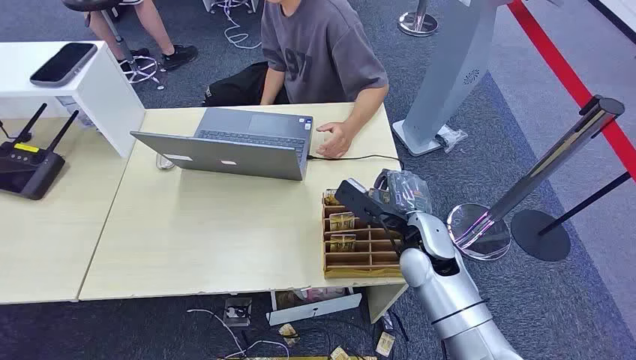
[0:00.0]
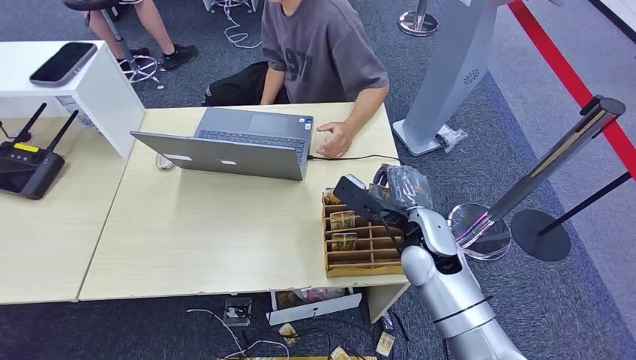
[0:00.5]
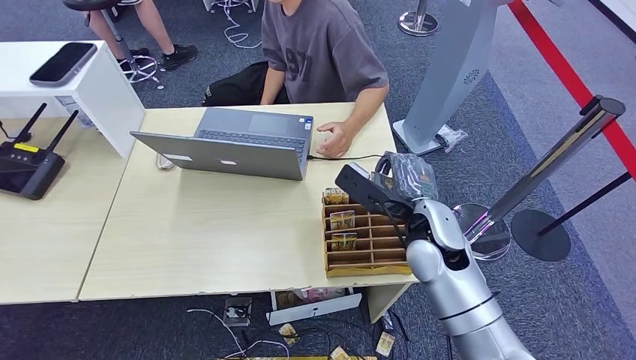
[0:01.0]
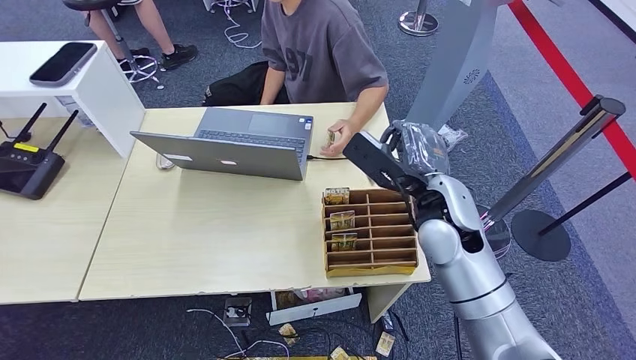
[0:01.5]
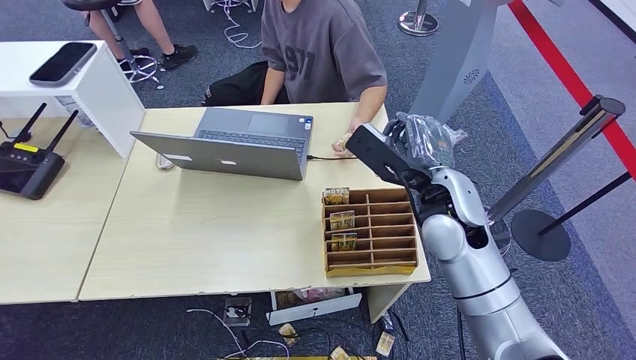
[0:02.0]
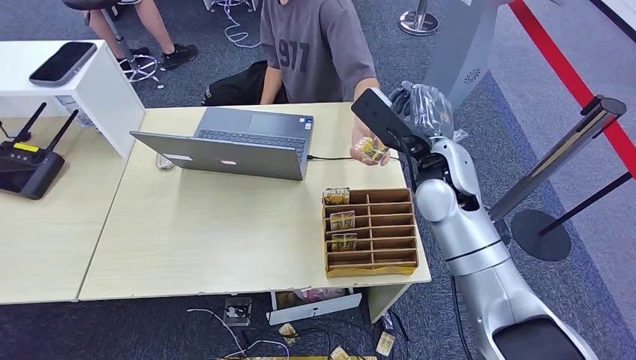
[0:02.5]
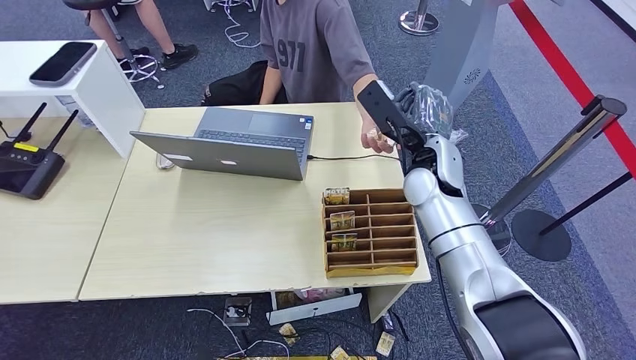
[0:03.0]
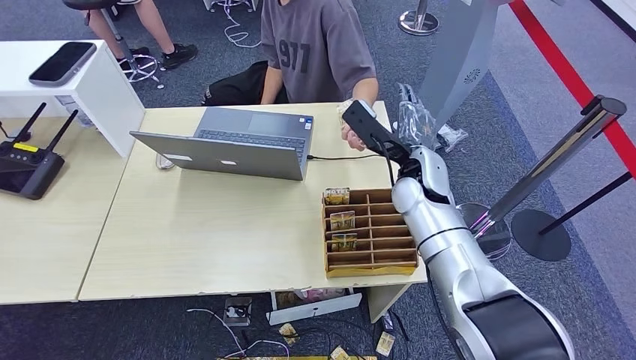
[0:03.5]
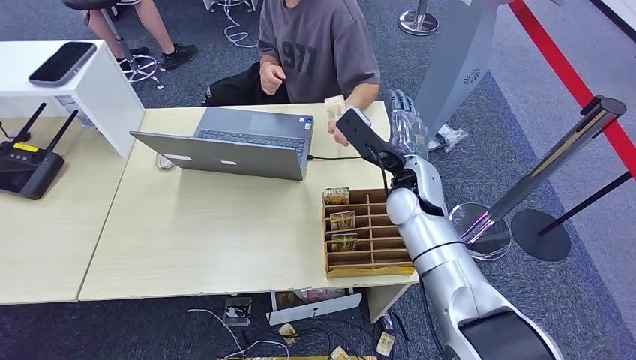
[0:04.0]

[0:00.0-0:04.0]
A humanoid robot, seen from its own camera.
Task of the whole recording: Pick up the card and hand it over to the target person.
Step, 0:00.0 to 0:01.5: Pick up the key card from the card box.
Step, 0:02.0 to 0:04.0: Hand the key card to the target.

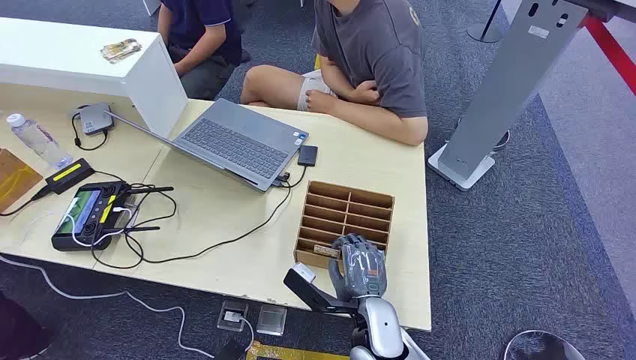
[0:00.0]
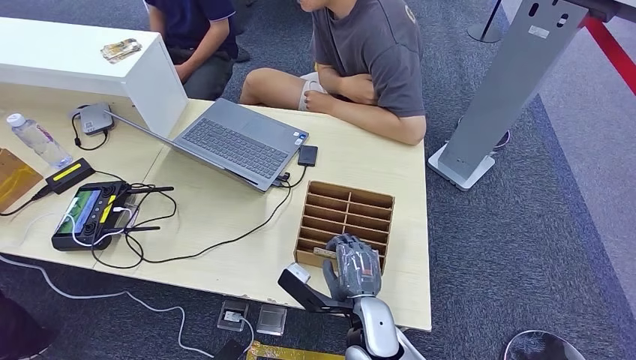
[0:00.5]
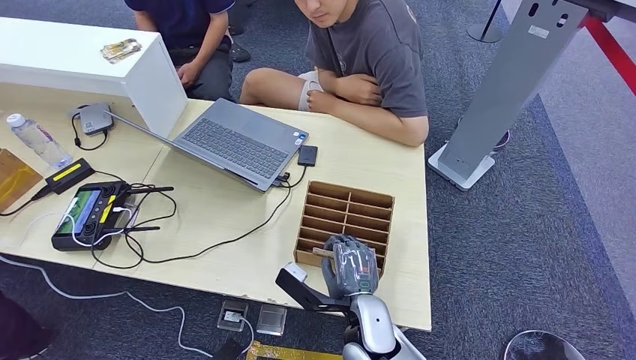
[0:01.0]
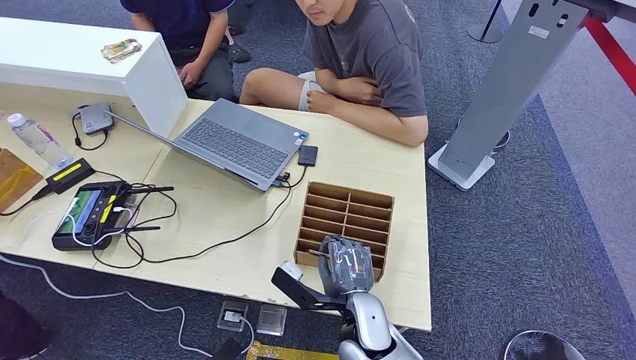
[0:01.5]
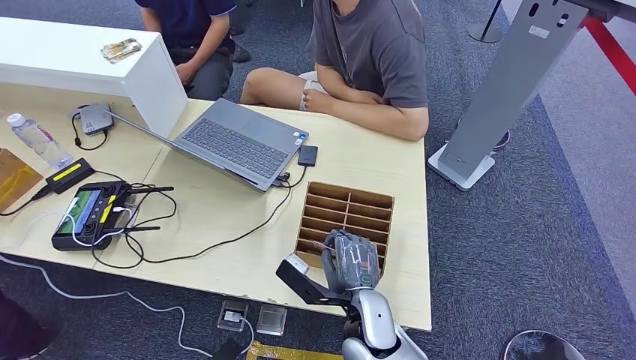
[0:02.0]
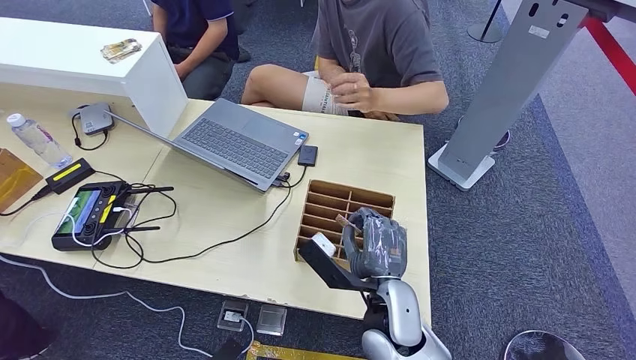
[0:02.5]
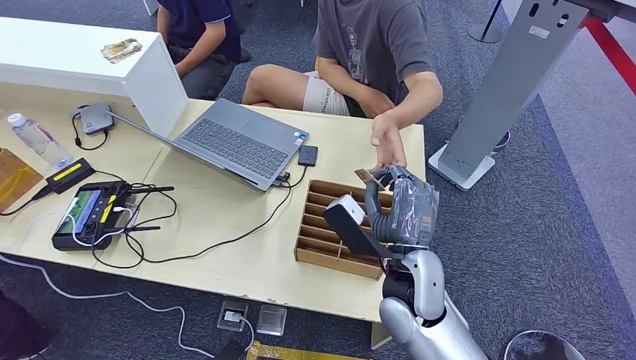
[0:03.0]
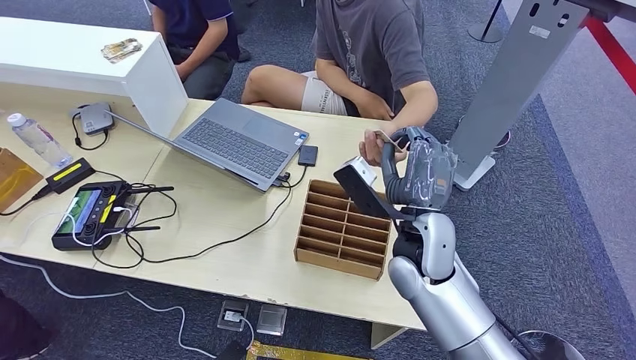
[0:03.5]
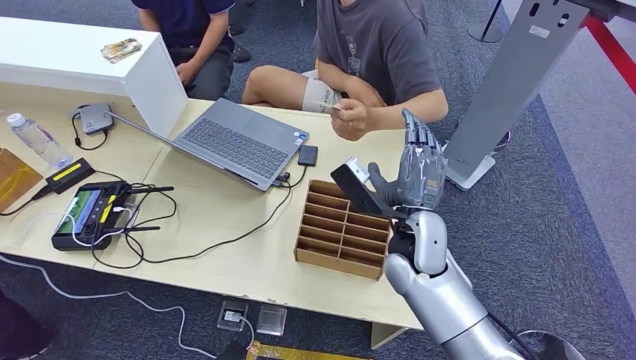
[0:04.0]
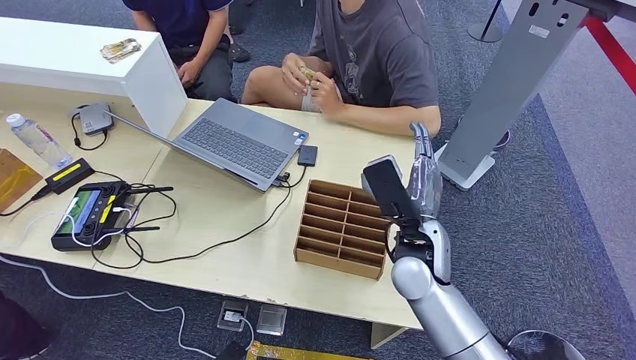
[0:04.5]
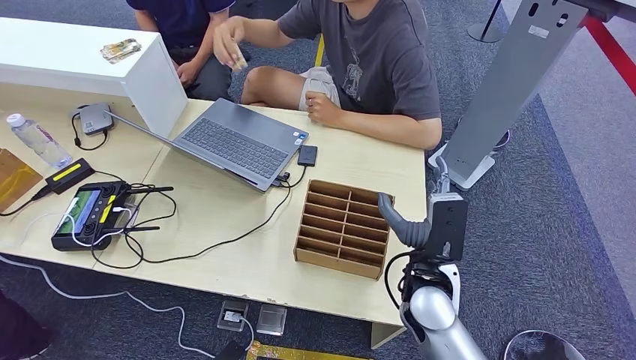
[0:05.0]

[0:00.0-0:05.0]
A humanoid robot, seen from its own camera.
Task of the whole recording: Pick up the card and hand it over to the target person.
Step, 0:00.0 to 0:02.5: Pick up the key card from the card box.
Step, 0:03.0 to 0:05.0: Hand the key card to the target.
0:02.5 to 0:05.0: The right hand goes roughly 5 cm downward, and travels forward and back again, roughly 10 cm each way.
